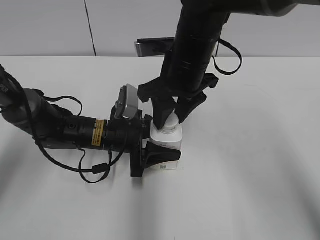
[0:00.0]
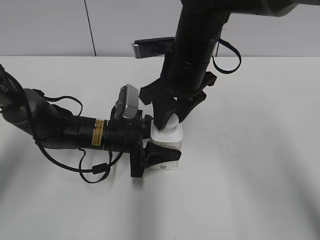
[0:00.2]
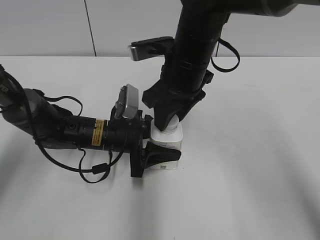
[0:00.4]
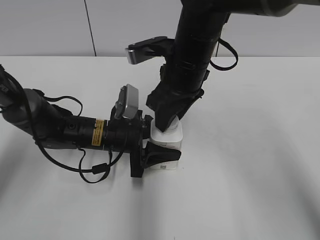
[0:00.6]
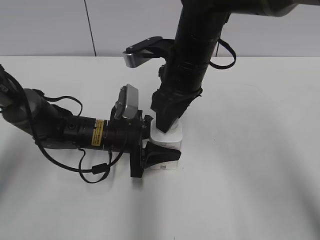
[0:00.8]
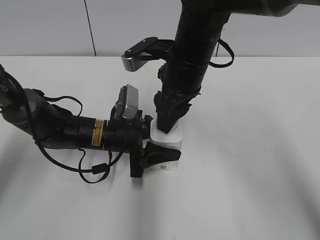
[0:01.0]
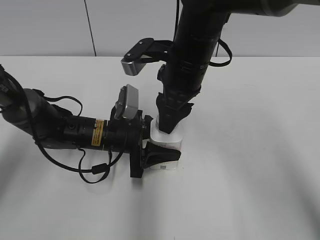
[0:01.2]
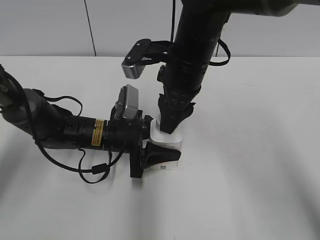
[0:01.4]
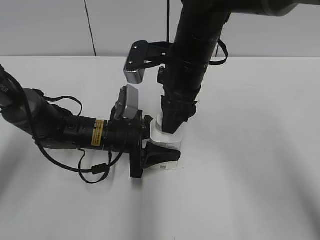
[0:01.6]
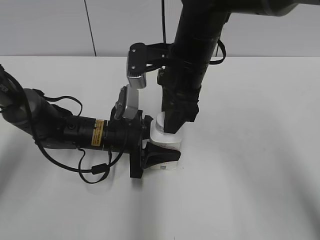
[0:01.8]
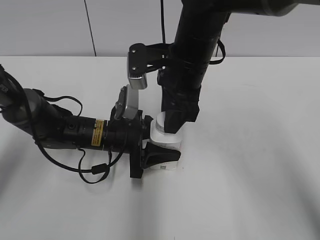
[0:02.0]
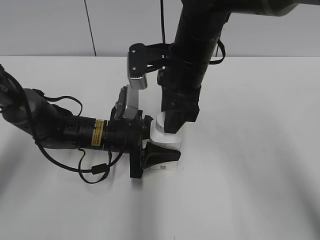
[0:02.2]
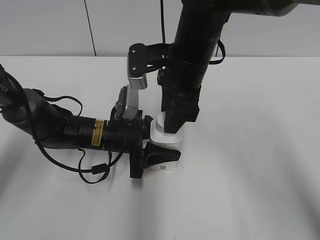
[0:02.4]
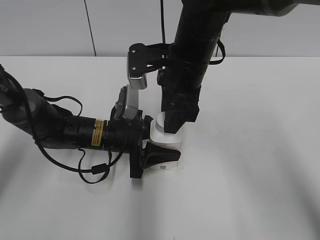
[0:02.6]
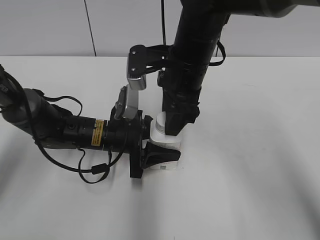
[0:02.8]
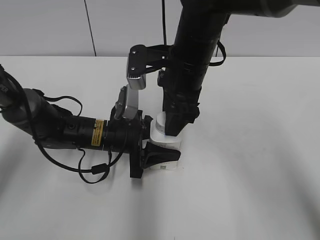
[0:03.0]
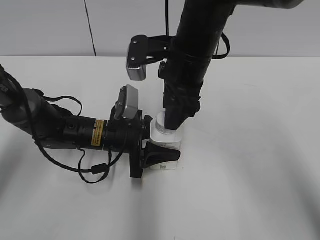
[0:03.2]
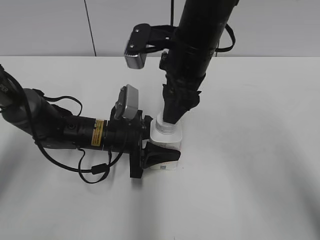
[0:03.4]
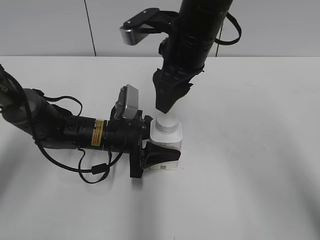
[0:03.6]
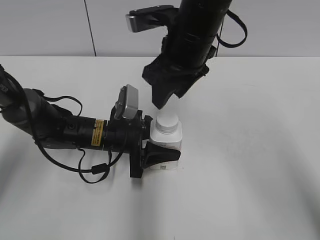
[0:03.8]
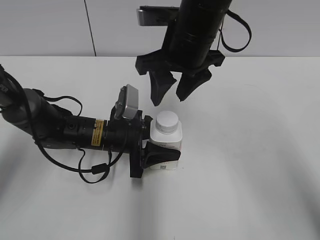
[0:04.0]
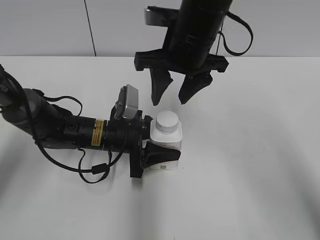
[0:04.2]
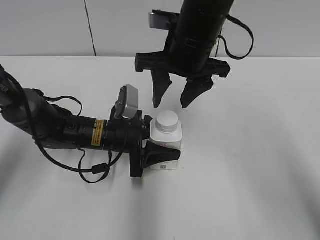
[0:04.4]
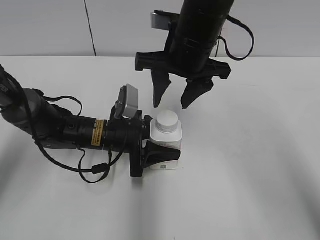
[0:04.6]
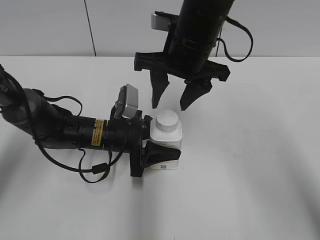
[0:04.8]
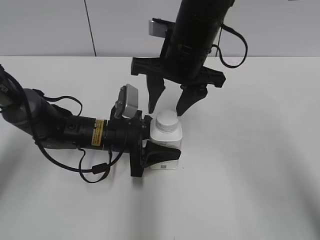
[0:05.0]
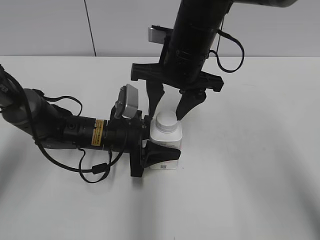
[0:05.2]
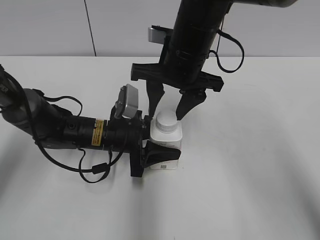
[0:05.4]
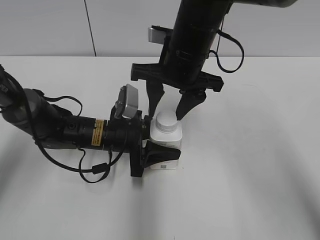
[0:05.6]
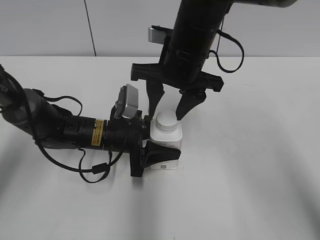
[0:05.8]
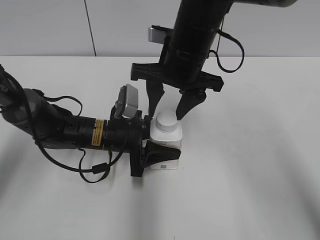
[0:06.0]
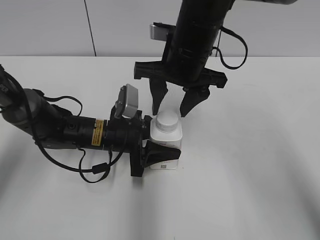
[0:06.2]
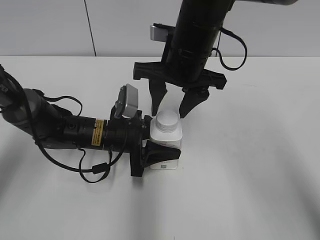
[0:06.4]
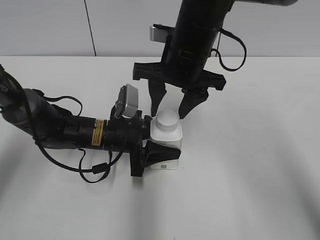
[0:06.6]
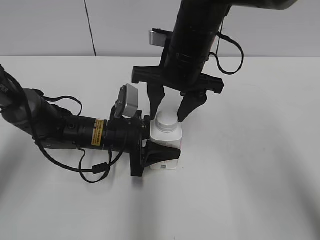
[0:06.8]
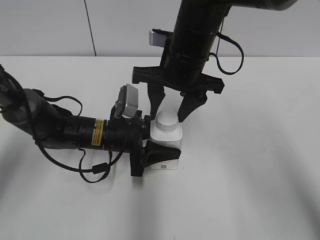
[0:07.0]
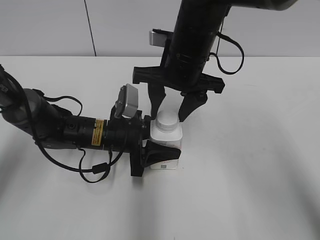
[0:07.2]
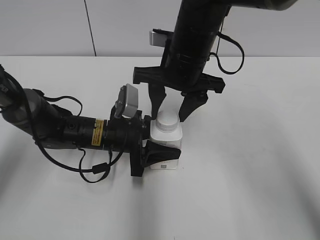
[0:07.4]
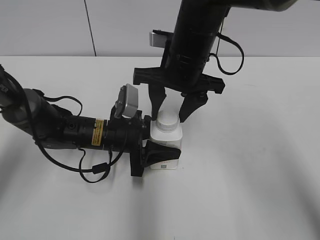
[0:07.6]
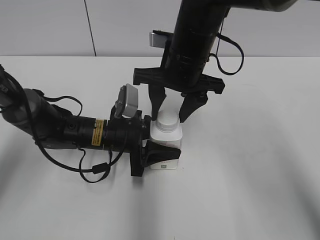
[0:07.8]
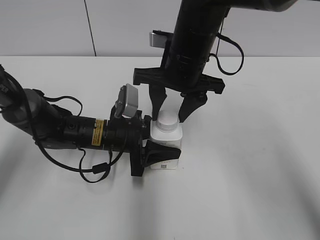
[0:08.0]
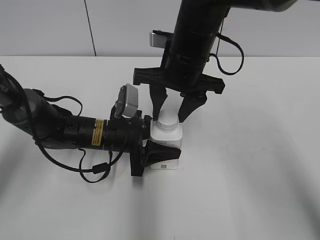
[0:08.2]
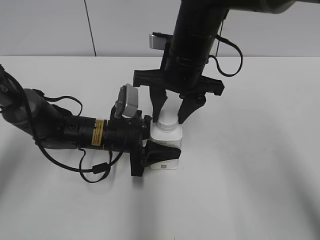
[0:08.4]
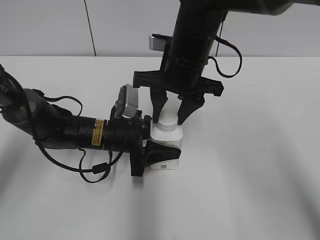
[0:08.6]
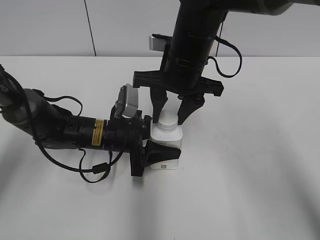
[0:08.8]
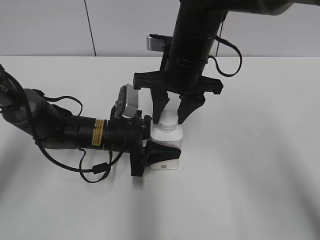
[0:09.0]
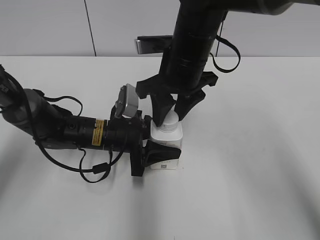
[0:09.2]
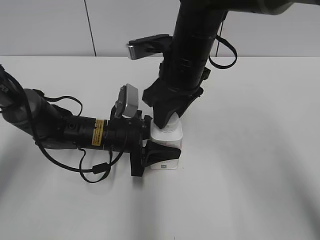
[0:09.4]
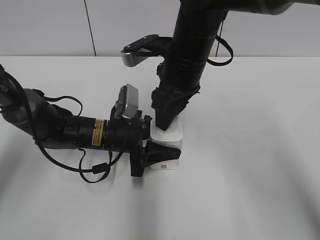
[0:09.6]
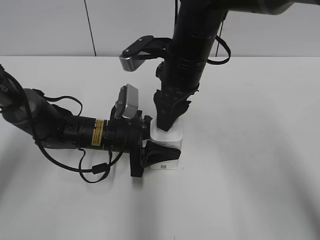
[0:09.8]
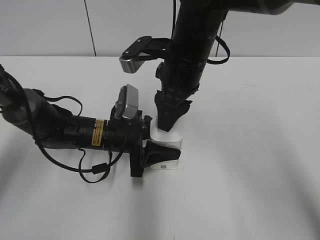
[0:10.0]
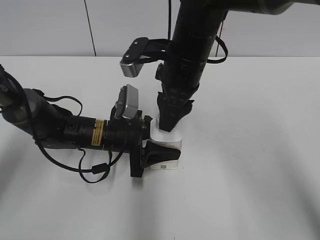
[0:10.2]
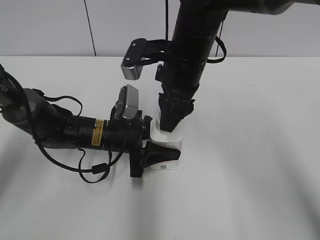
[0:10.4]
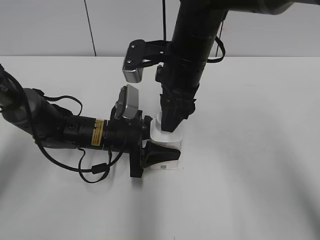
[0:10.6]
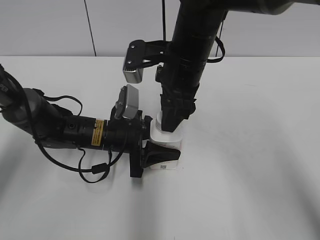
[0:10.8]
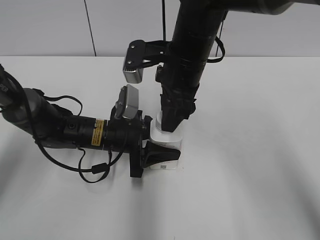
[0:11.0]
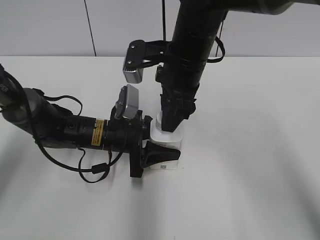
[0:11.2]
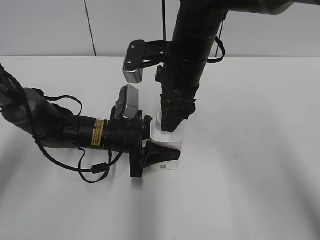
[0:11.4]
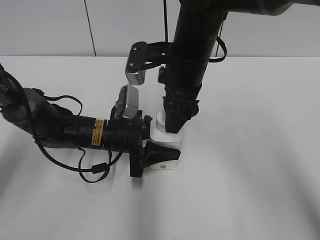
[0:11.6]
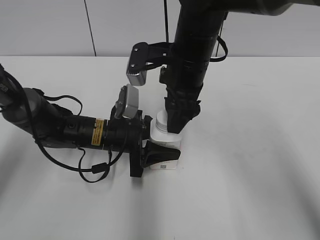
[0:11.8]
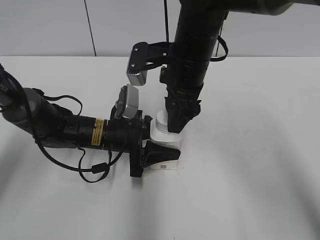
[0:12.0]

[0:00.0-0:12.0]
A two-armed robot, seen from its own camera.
0:01.6 to 0:03.0: The right gripper opens its fingers.
0:04.4 to 0:06.0: The grippers stay close to where they were, moving slightly.
0:06.0 to 0:07.6: Neither gripper changes place.
0:07.6 to 0:09.0: The right gripper closes up.
0:10.4 to 0:12.0: The right gripper opens up.

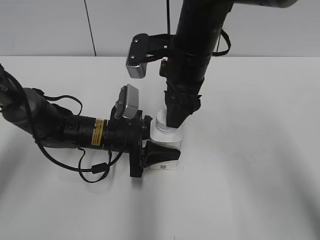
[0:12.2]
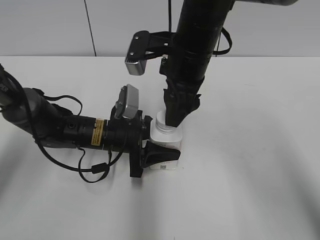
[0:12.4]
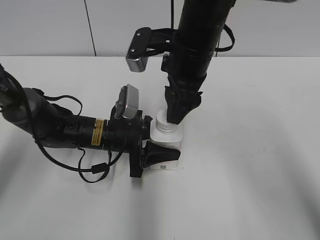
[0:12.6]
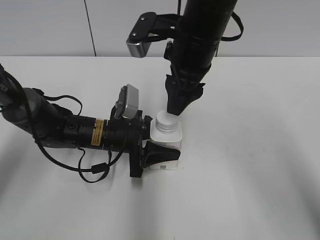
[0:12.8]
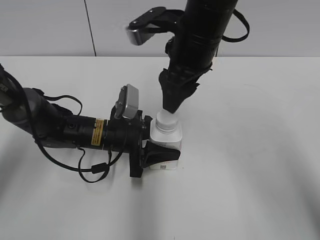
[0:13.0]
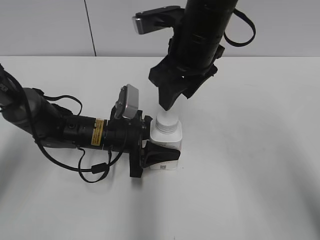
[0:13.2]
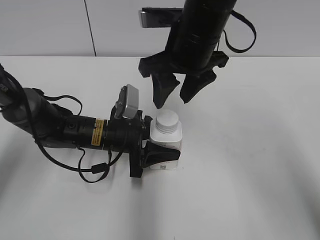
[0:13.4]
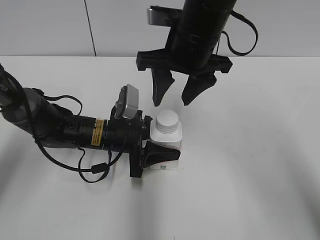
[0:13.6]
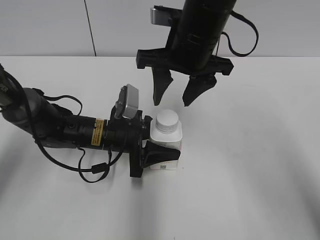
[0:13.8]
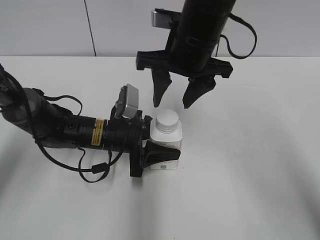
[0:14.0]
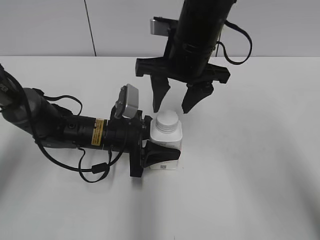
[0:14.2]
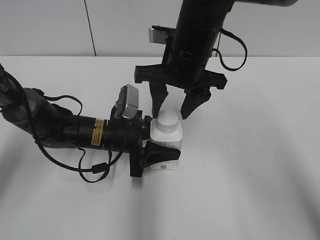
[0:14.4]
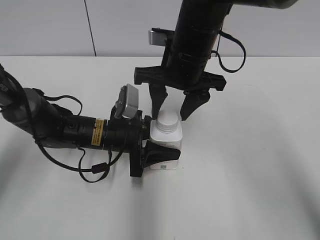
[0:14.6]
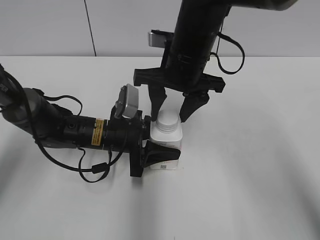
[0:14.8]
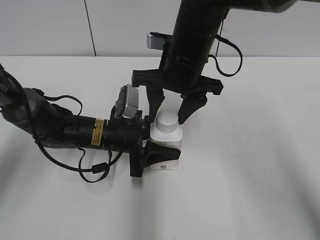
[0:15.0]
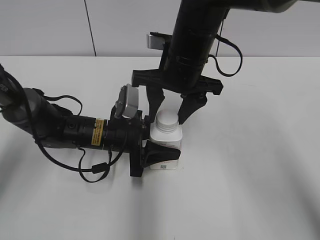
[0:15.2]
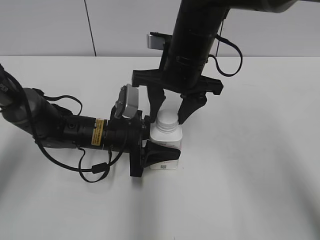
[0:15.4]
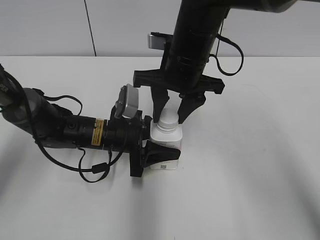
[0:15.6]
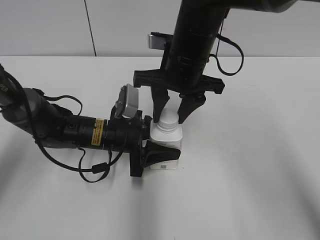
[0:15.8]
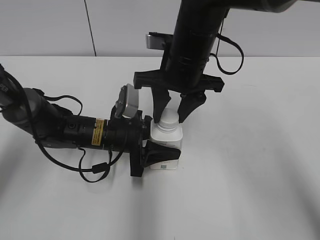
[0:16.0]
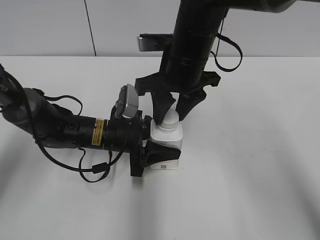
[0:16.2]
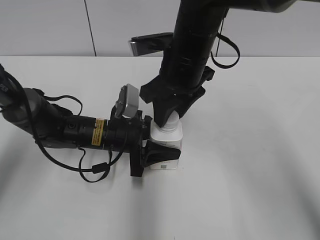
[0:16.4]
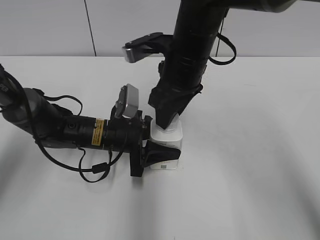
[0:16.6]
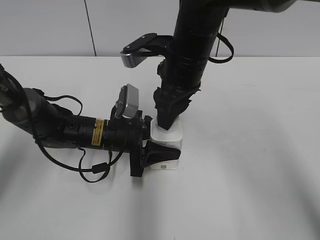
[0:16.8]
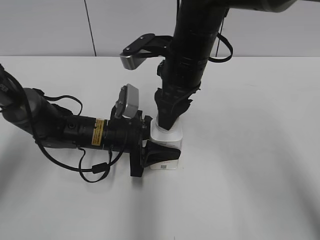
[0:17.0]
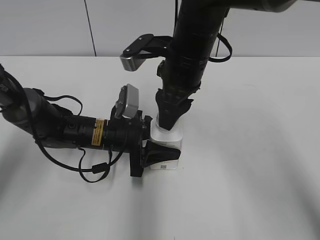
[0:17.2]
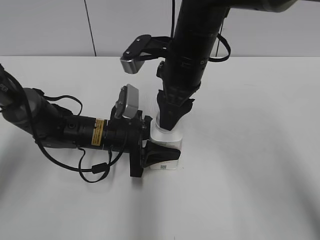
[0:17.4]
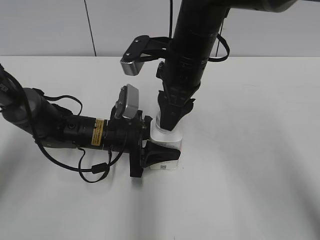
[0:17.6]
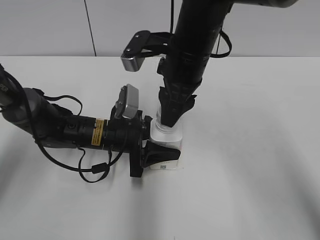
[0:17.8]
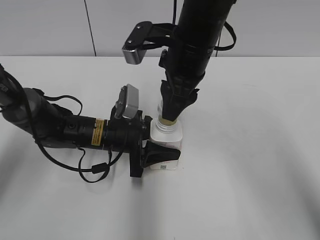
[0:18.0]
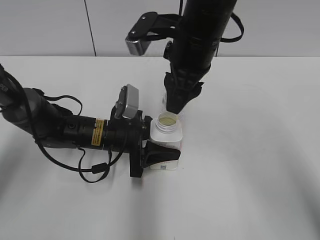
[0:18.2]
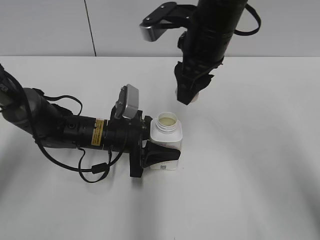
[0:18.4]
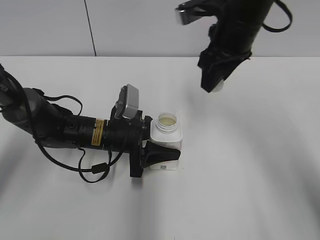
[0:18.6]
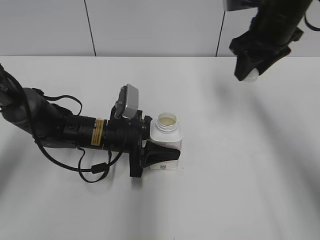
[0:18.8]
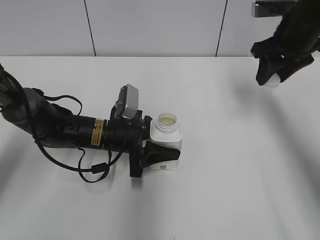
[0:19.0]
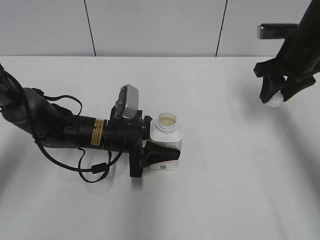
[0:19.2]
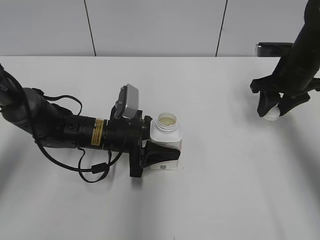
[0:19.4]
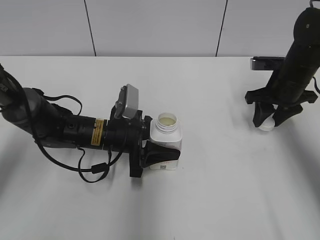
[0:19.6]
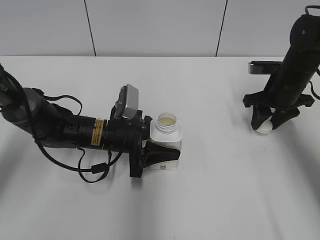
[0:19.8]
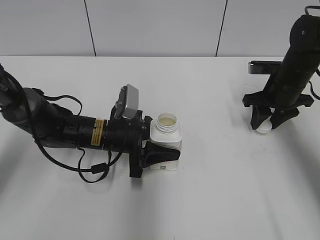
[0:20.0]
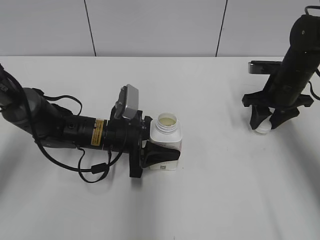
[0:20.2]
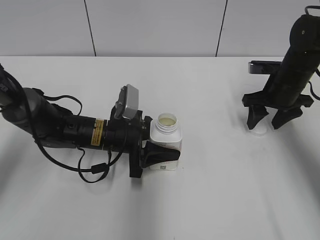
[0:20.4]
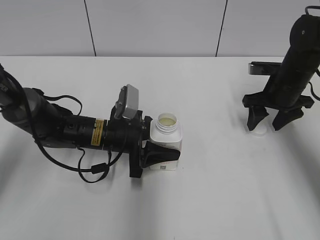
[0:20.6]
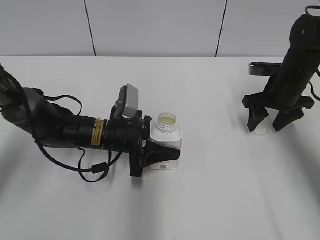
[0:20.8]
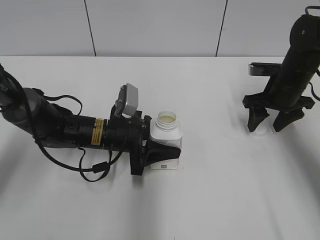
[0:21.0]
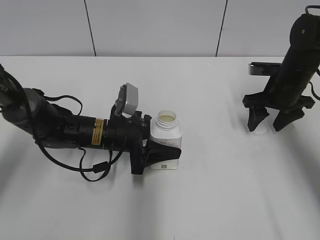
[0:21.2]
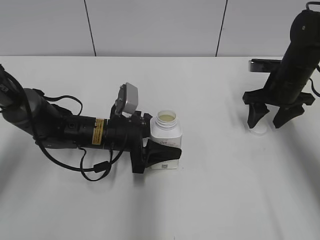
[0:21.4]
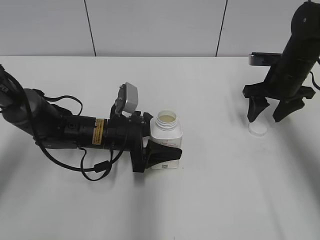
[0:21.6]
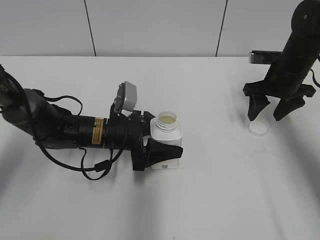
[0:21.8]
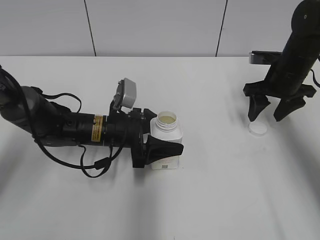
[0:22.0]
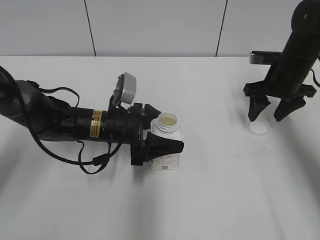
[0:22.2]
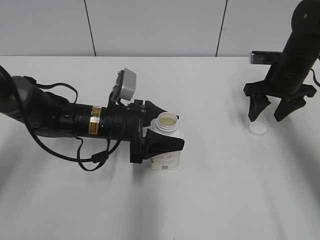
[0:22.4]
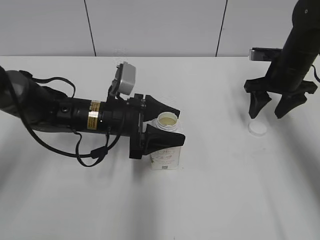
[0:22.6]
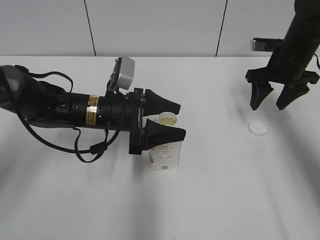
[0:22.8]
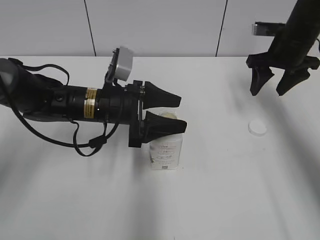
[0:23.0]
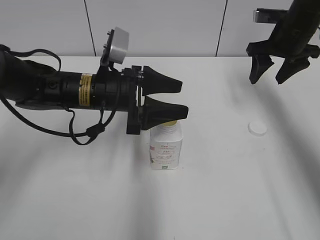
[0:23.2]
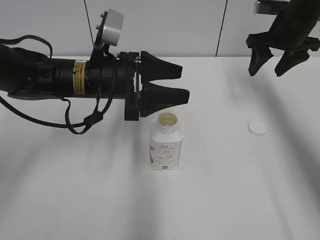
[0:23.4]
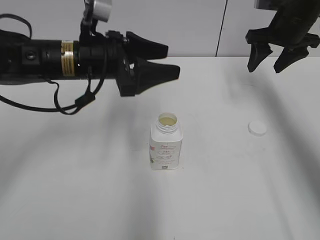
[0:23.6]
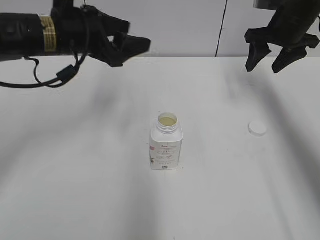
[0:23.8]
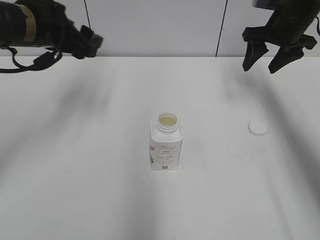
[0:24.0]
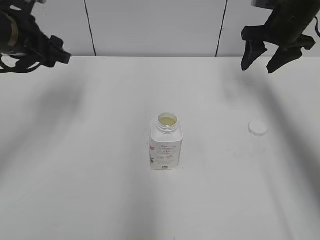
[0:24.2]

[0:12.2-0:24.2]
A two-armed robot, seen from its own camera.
Step, 0:18.2 to 0:20.2: Place the bottle cap on the right.
Step, 0:20.4 to 0:22.2: Place the Yili Changqing with the left hand.
0:13.8 to 0:15.2: The grippers stay close to where they were, moving slightly.
0:15.2 to 0:16.6: The right gripper closes.
0:18.2 to 0:19.8: The right gripper moves to the right and downward, about 25 cm.
0:19.8 to 0:21.2: The right gripper opens up.
0:21.2 to 0:22.6: The grippers make only small movements.
0:22.6 to 0:24.2: The right gripper shifts about 10 cm upward, while the left gripper shifts about 20 cm upward and to the left.
